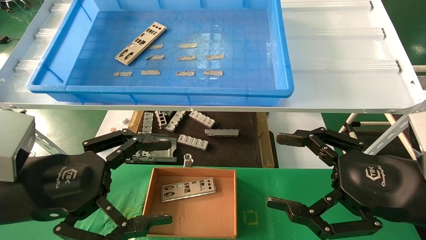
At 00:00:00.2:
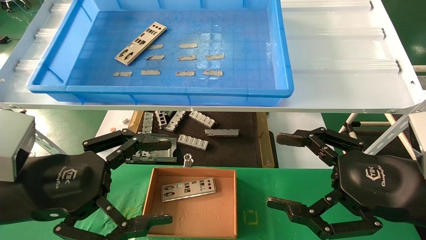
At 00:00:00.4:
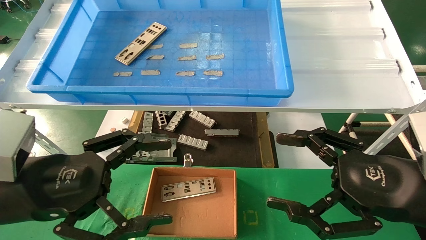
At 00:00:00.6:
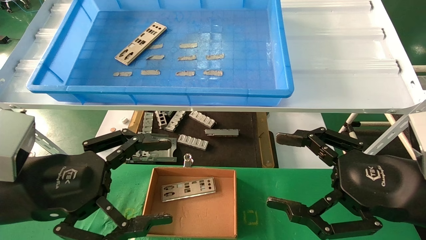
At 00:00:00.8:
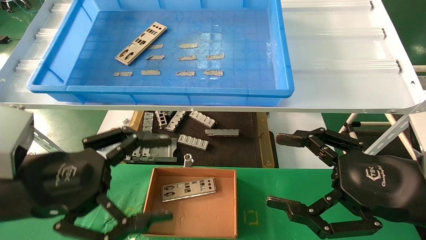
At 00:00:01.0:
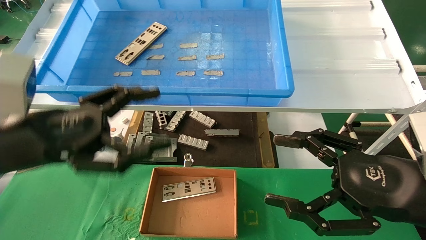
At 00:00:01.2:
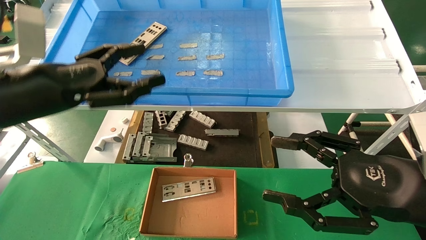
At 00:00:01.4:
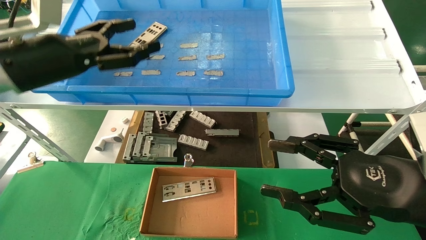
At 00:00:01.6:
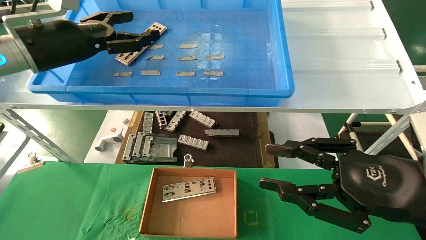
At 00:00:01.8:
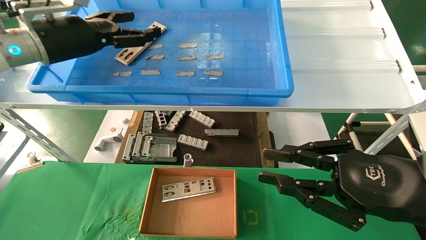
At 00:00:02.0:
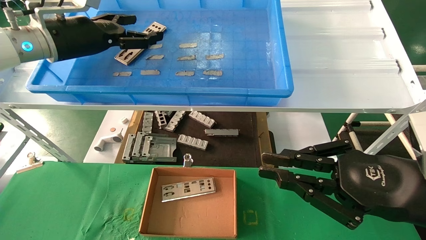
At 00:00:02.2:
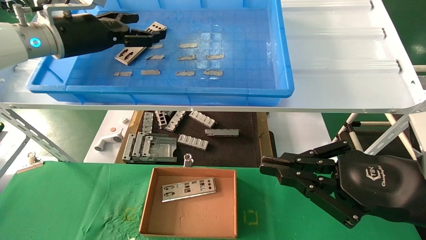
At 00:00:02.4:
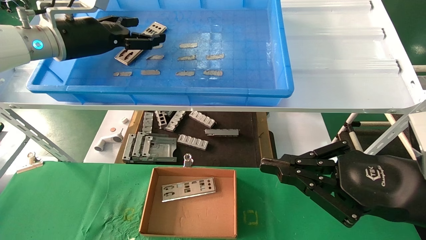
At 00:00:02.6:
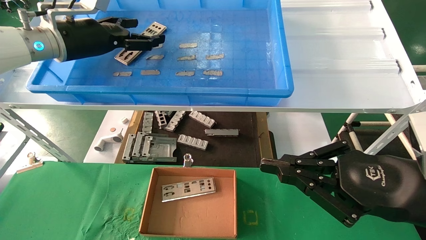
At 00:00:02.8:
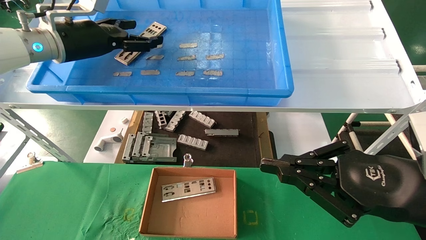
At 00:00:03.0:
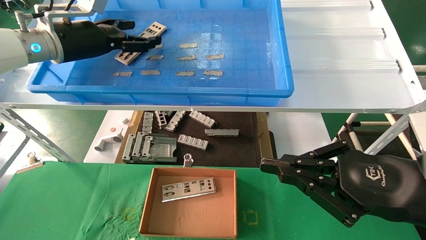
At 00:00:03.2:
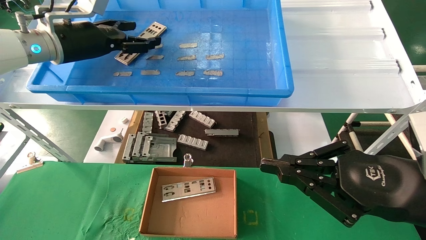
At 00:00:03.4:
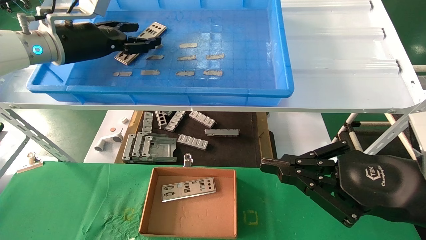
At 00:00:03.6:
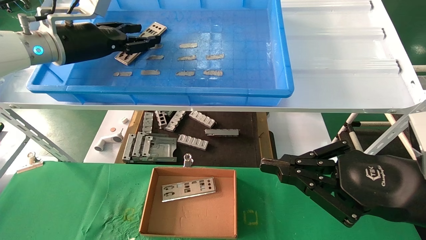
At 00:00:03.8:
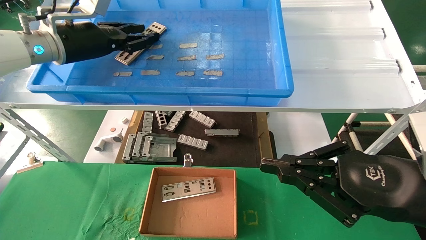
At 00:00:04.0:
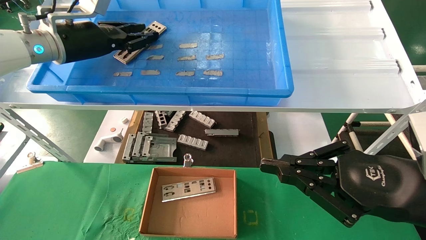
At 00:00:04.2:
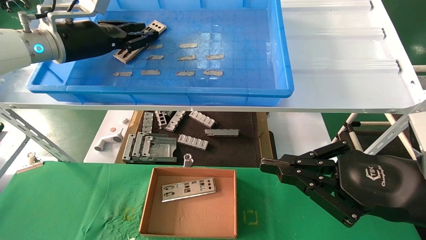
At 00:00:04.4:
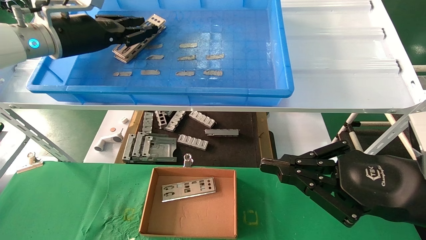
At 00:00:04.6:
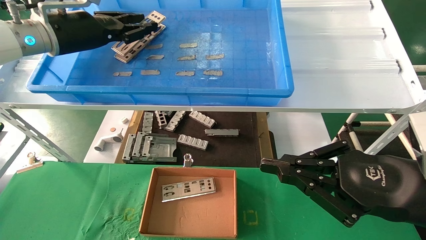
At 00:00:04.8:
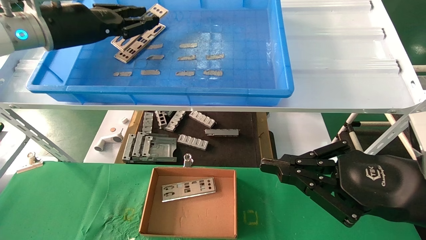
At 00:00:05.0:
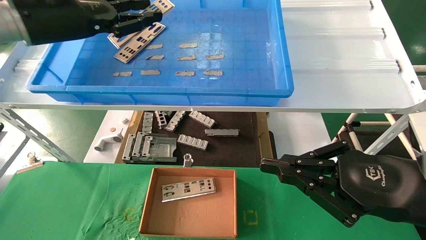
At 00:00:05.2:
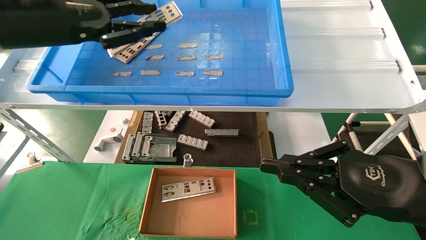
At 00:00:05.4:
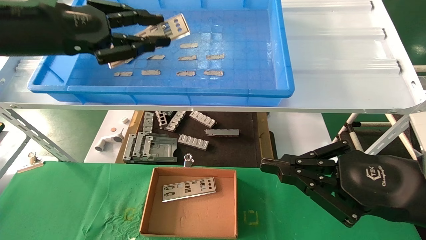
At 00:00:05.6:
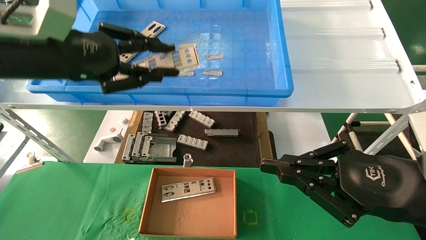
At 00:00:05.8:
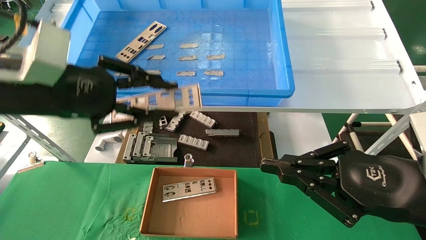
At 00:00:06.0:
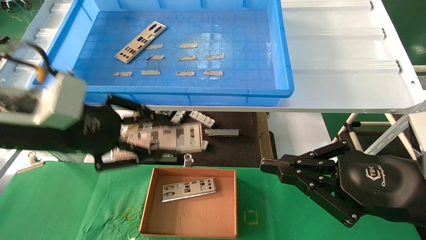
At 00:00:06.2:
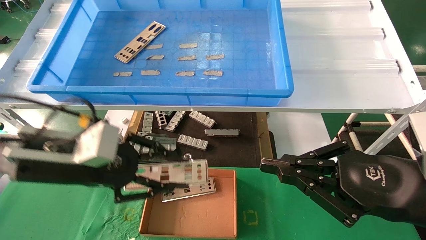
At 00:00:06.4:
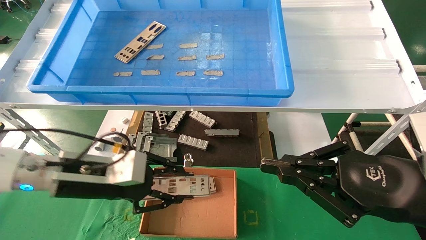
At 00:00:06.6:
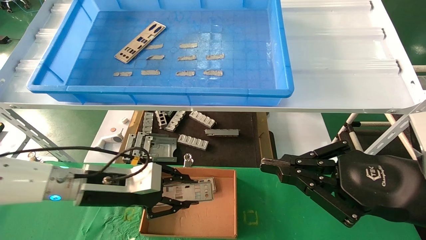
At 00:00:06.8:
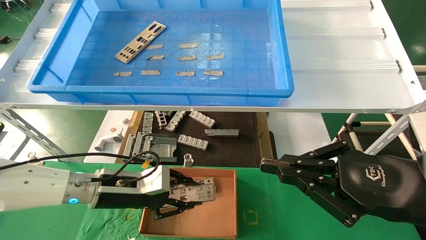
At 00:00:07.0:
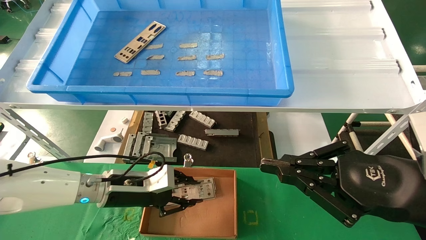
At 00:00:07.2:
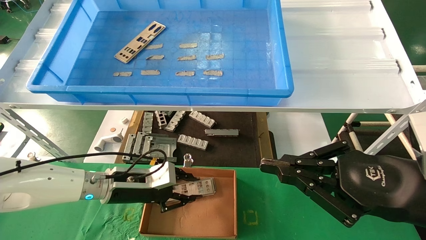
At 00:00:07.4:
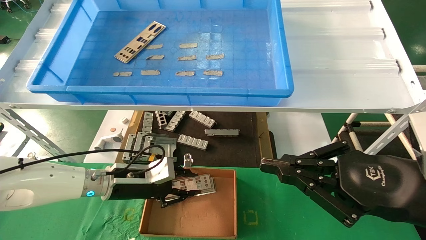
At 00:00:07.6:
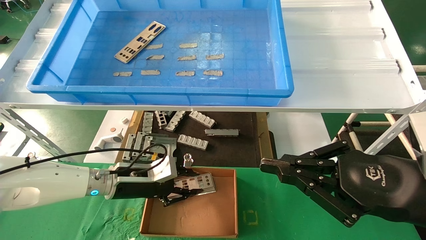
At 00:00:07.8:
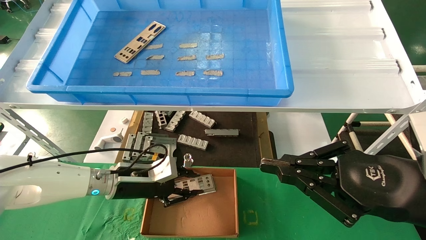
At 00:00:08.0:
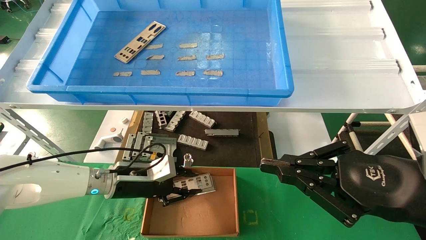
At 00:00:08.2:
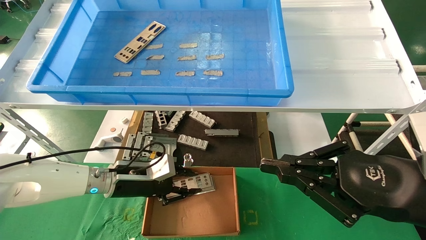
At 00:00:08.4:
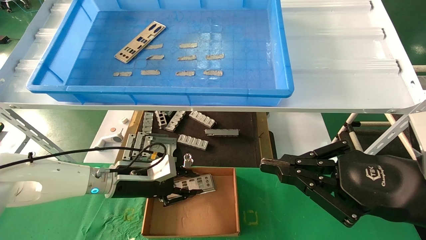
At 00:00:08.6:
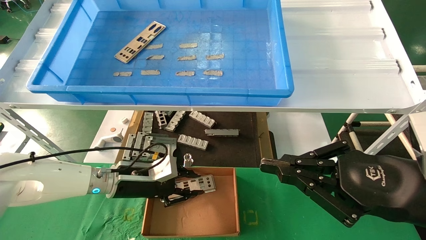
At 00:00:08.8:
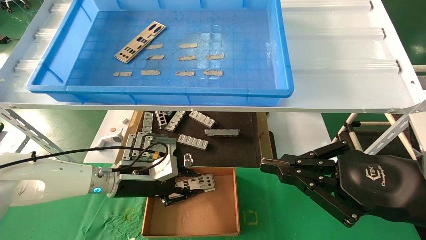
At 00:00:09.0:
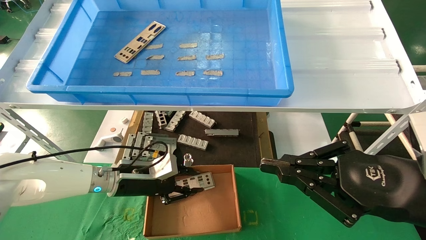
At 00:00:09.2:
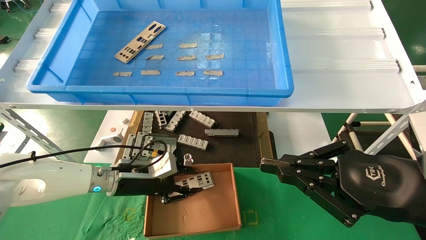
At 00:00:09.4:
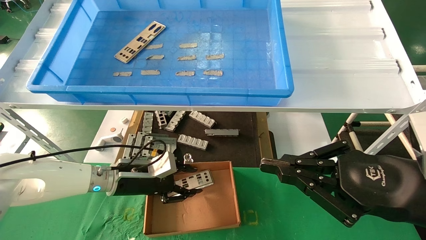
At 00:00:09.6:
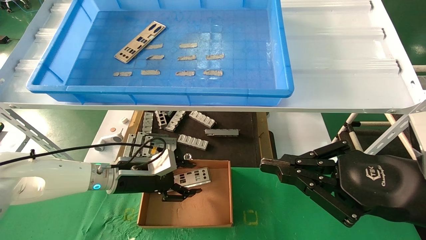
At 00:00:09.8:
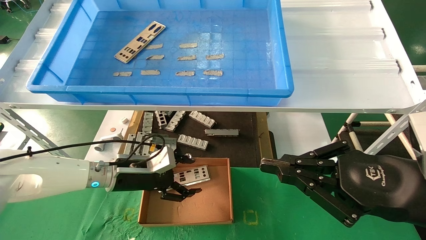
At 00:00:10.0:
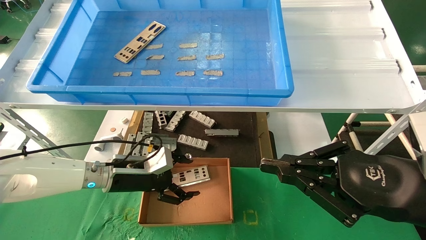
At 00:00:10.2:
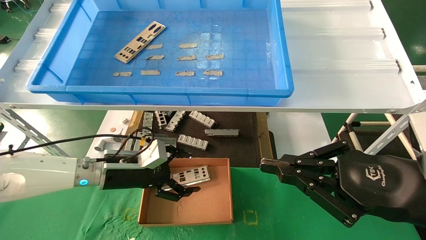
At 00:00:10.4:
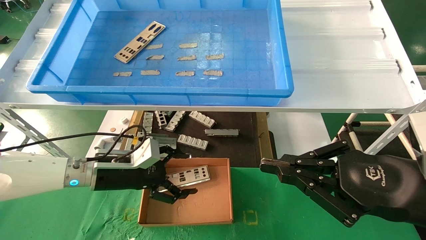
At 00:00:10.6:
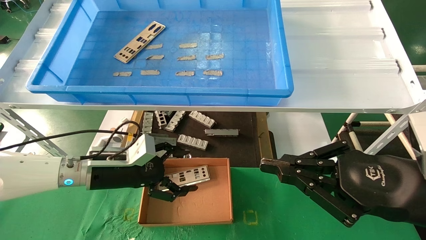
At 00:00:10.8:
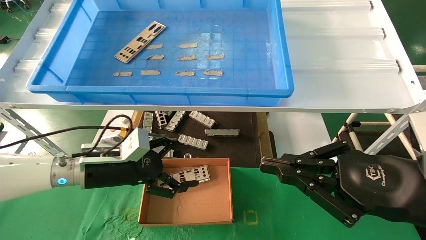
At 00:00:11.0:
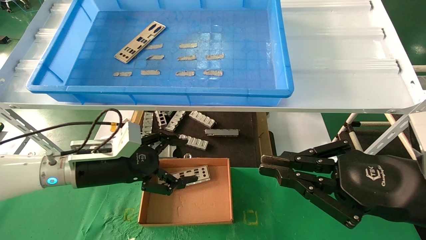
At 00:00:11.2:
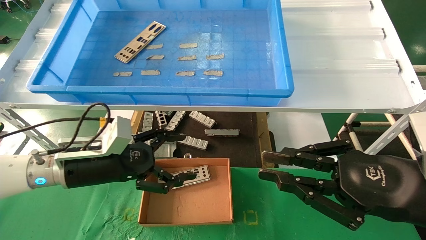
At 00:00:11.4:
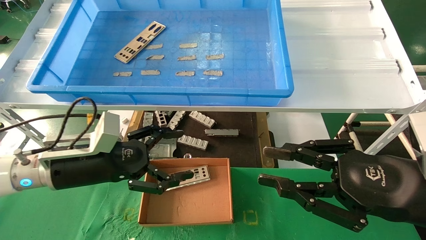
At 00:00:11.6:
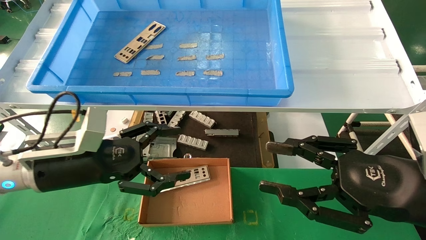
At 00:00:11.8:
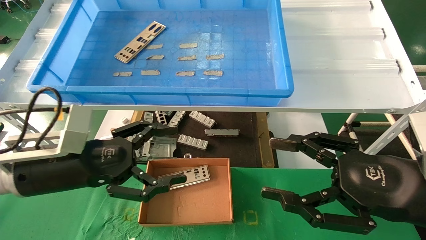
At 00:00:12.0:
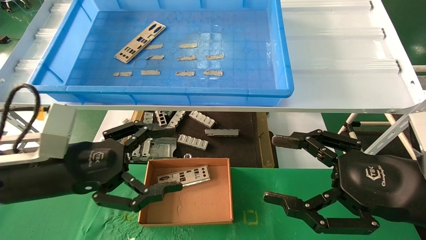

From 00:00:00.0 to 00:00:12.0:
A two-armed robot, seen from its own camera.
Task of the whole recording: pick up the parts on the tray and put them in the cardboard box.
Step, from 00:00:01.0 to 00:00:04.4: Pick up the IO bracket from the container box.
Step, from 00:00:04.6 to 00:00:09.4: Place the IO bracket into the ingredient slot.
From 00:00:00.0 to 00:00:01.6: The left gripper shifts some 20 cm forward and upward. Meanwhile the right gripper closes up.
From 00:00:01.6 to 00:00:03.0: The right gripper closes up. The left gripper is displaced forward by approximately 5 cm.
From 00:00:03.0 to 00:00:04.4: The left gripper closes up.
From 00:00:04.4 to 00:00:06.0: The left gripper shifts some 20 cm backward and downward.
From 00:00:06.0 to 00:00:07.6: The left gripper heads downward and forward, covering approximately 25 cm.
From 00:00:07.6 to 00:00:09.0: Both grippers stay put.
From 00:00:09.0 to 00:00:10.4: The left gripper opens its fingers.
From 00:00:10.4 to 00:00:12.0: The left gripper goes about 15 cm backward and upward; the right gripper opens its fingers.

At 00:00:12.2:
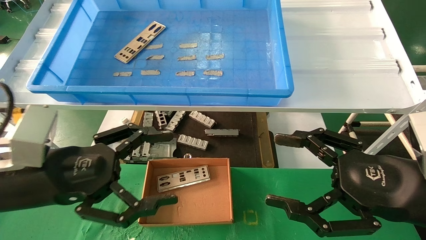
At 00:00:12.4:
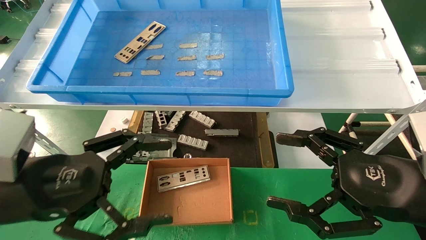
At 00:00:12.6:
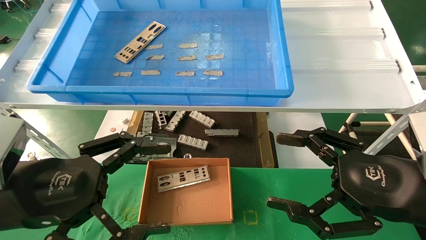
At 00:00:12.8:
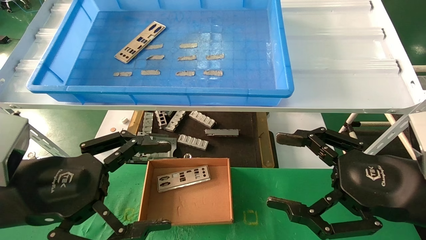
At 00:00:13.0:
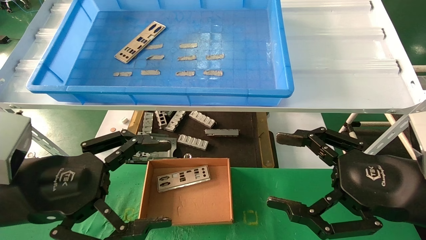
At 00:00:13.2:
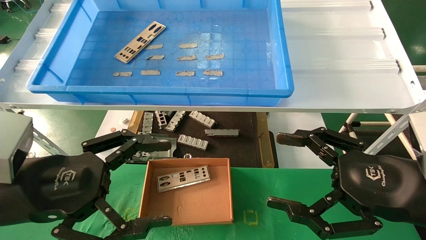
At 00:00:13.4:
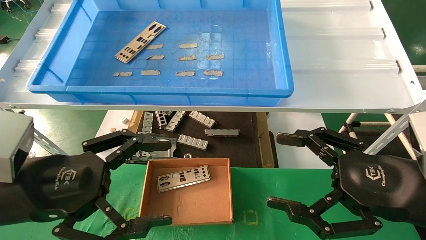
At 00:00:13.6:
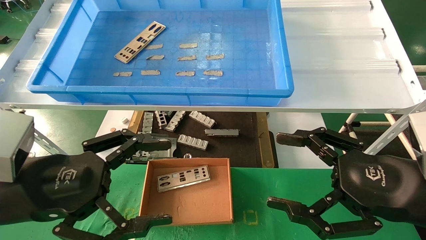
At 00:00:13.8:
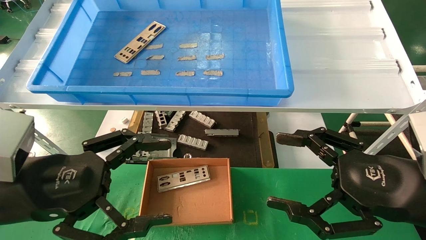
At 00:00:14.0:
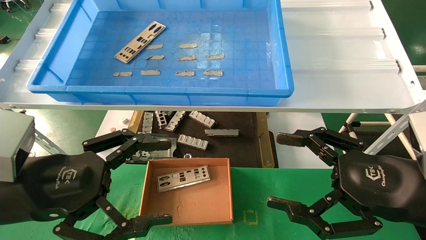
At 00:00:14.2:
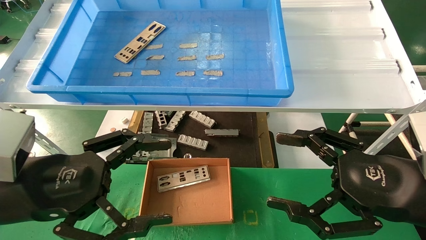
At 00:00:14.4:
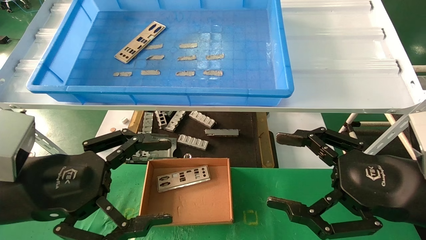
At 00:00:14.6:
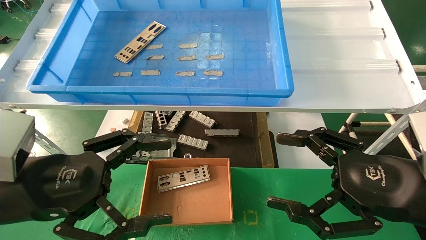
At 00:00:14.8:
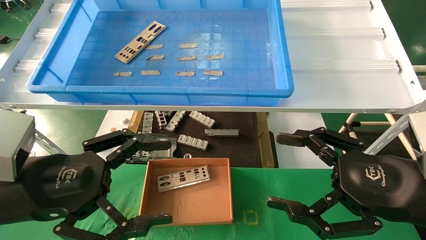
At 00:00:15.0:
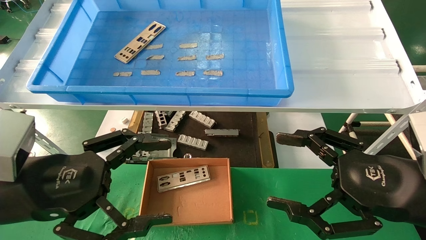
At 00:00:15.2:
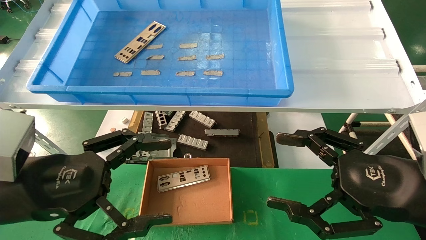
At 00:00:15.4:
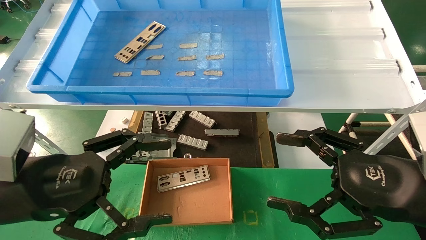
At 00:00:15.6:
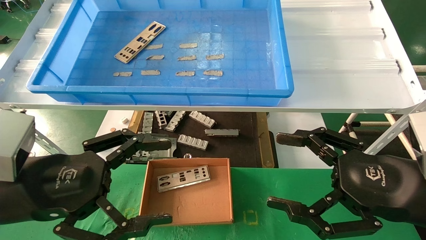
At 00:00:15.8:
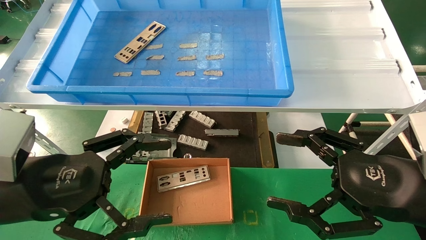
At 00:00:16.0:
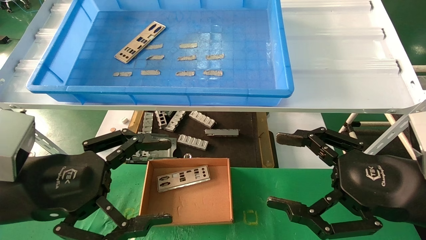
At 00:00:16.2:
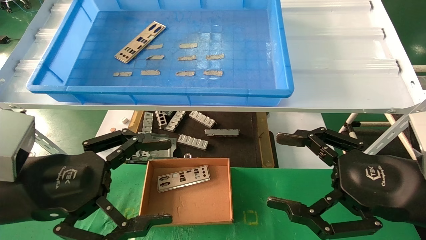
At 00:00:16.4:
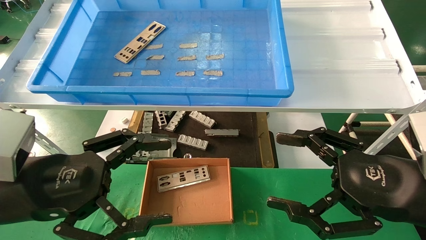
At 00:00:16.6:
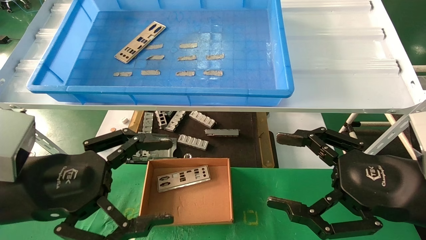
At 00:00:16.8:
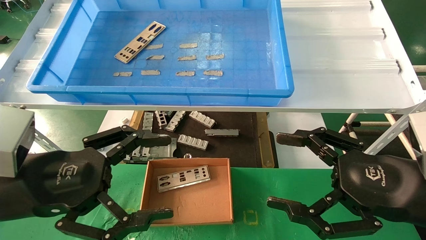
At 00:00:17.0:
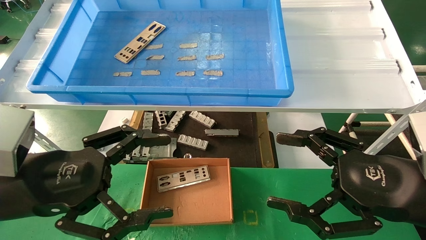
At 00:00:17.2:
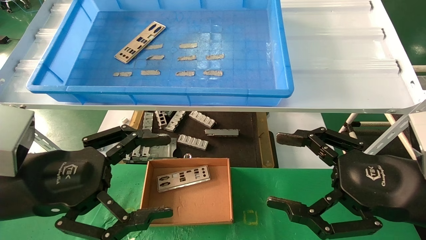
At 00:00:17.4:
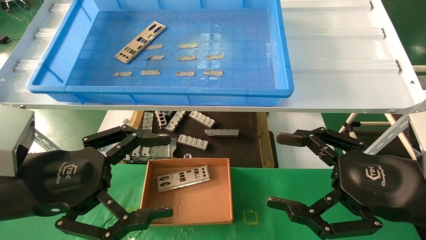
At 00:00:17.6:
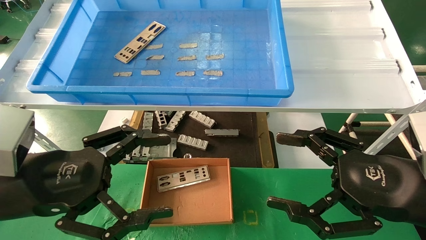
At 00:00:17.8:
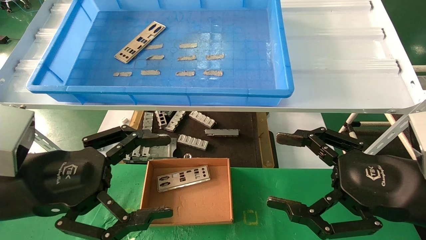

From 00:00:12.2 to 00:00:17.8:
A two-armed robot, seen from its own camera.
Task of the whole recording: pick up the parts on the tray and put them in the cardboard box.
From 00:00:12.2 to 00:00:13.6: The grippers move only a little.
From 00:00:13.6 to 00:00:17.8: Both grippers stay about where they are.
